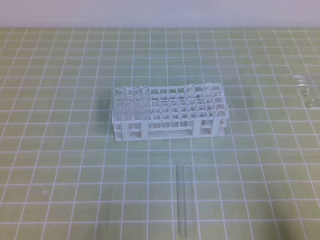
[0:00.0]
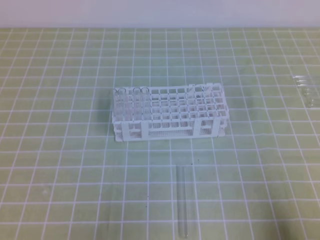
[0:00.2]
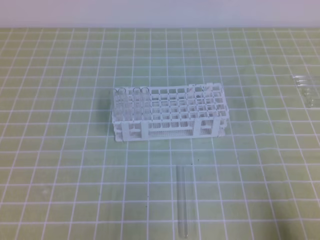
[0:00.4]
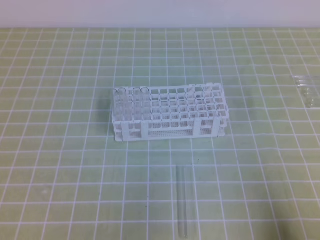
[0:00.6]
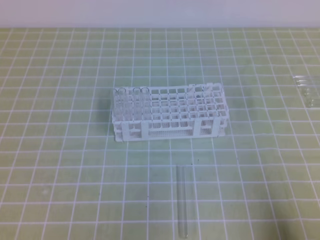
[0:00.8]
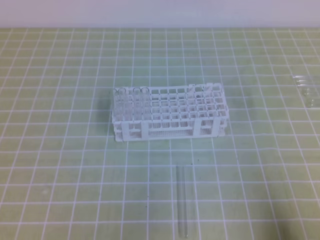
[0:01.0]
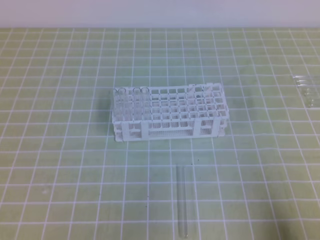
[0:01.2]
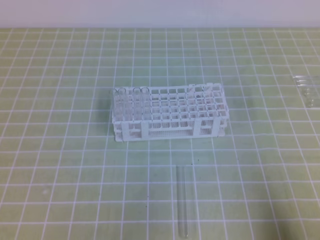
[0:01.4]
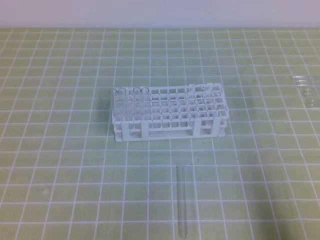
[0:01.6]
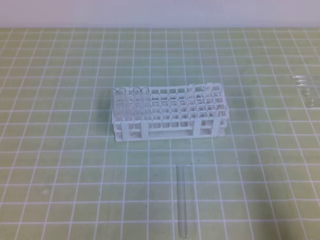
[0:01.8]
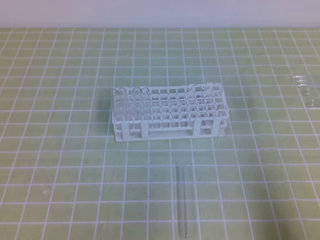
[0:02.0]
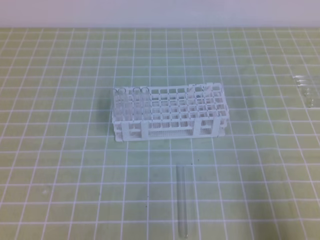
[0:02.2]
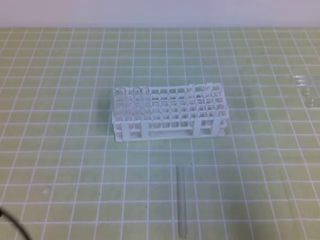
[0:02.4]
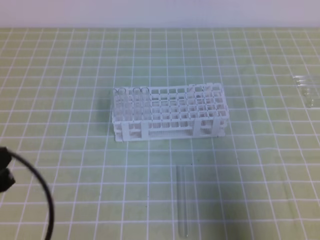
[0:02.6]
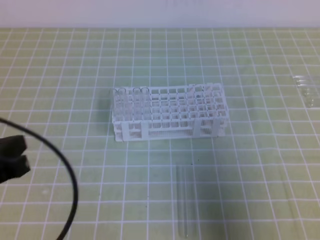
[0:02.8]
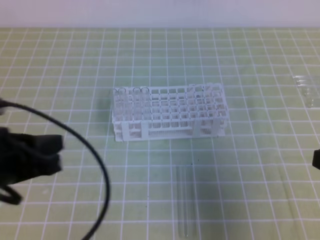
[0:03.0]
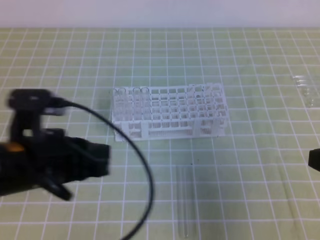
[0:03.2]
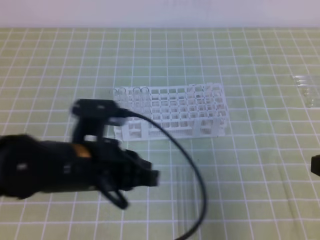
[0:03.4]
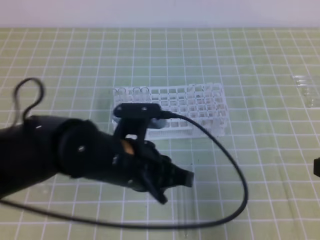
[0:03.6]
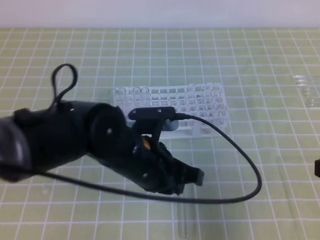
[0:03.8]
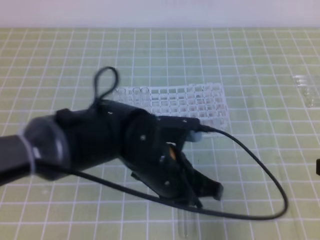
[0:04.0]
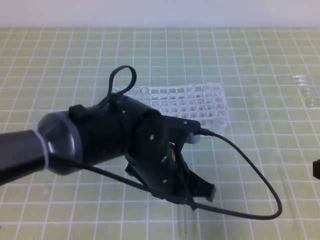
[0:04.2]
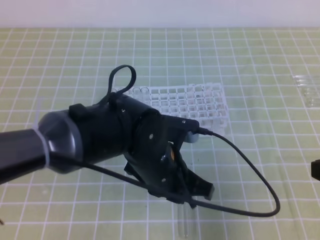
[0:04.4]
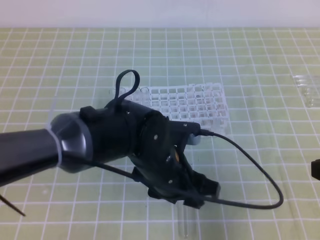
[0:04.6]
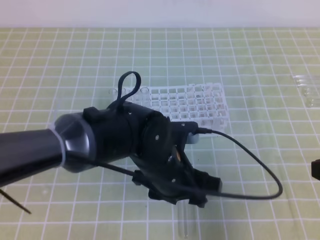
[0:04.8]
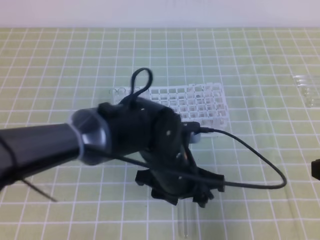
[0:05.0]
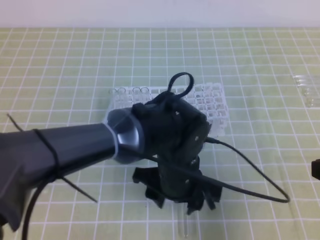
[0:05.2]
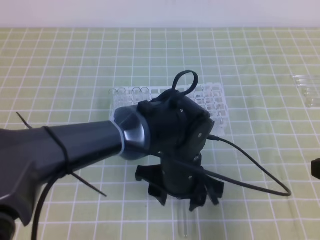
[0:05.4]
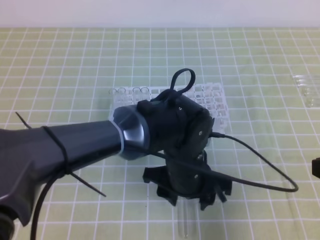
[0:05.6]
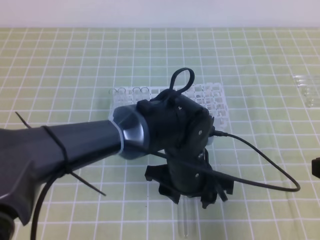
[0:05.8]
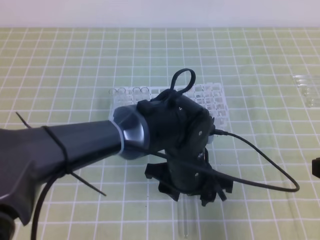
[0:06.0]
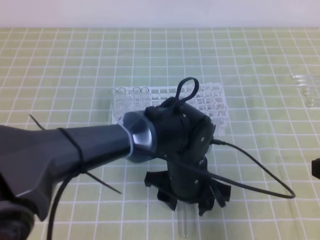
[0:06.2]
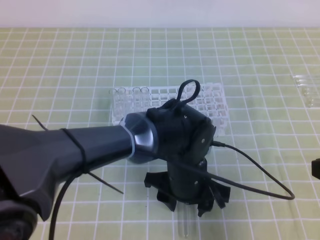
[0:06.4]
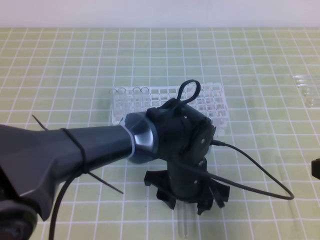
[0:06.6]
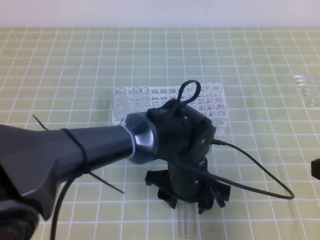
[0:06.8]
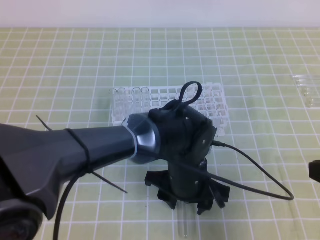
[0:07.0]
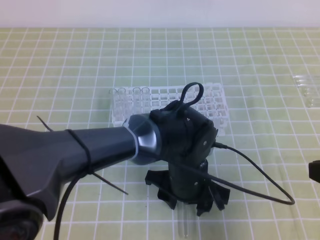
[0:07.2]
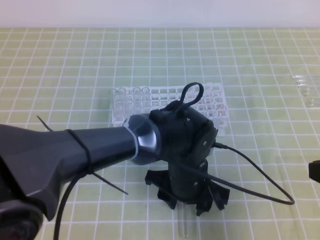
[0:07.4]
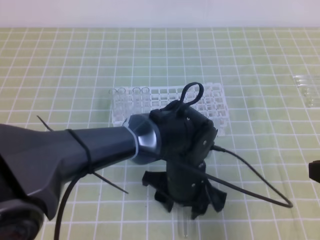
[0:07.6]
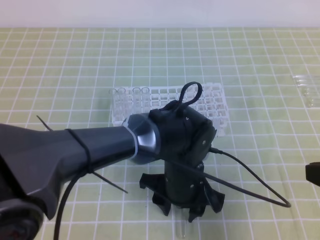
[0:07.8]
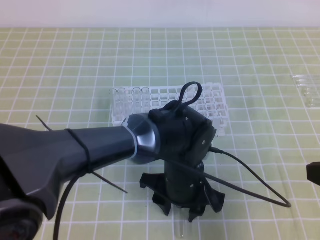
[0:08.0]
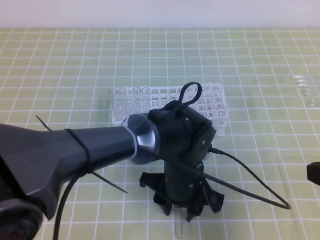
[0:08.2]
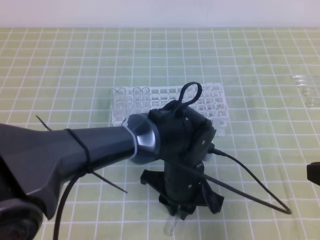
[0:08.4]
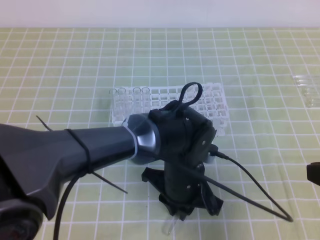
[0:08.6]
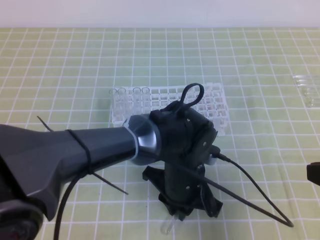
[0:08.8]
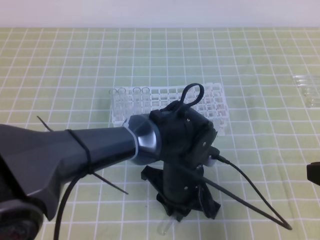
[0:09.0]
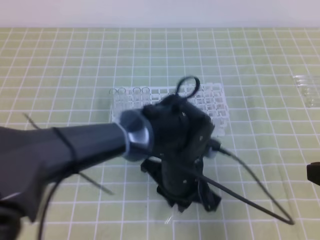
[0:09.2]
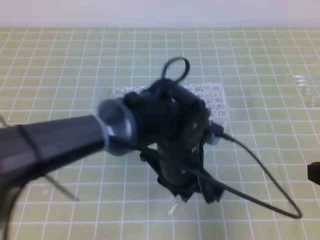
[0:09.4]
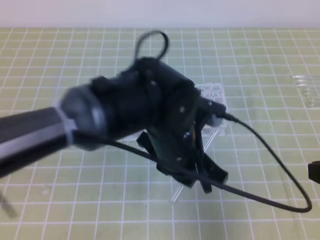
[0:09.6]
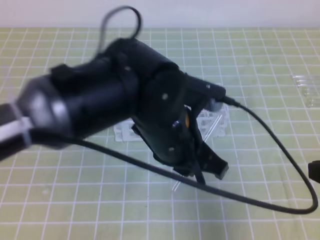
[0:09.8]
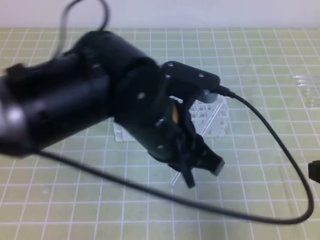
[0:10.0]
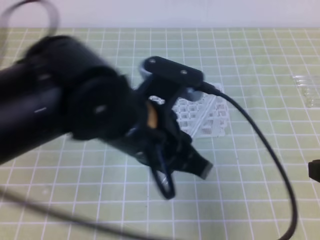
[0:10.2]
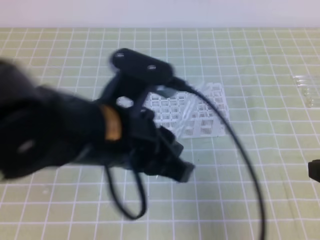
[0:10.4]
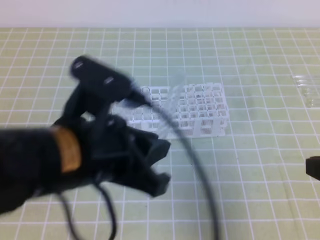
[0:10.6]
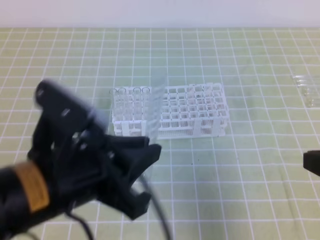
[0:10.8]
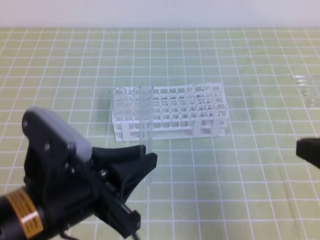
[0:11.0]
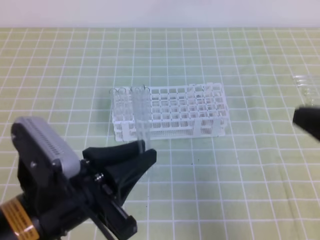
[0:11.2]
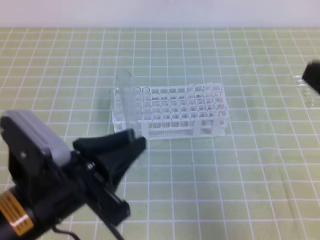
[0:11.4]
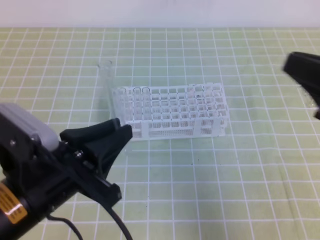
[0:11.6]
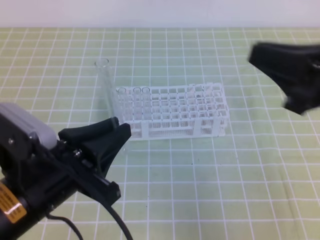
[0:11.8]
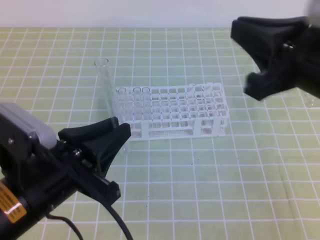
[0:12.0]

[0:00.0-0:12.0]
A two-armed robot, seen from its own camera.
0:01.6 to 0:03.0: The right gripper moves upward and forward, some 10 cm. The left gripper travels forward, upward and to the right by about 15 cm.
0:03.0 to 0:04.4: The left gripper travels to the right by some 20 cm.
0:04.4 to 0:06.0: The left gripper ends up about 5 cm from where it was, and opens up.
0:06.0 to 0:07.6: The grippers make only small movements.
0:07.6 to 0:09.0: The left gripper closes up.
0:09.0 to 0:10.4: The left gripper heads upward and to the left, covering roughly 20 cm.
0:10.4 to 0:12.0: The right gripper goes about 10 cm to the left, upward and forward, while the left gripper moves to the left and downward, roughly 10 cm.

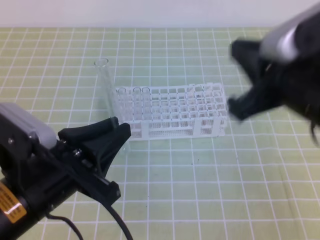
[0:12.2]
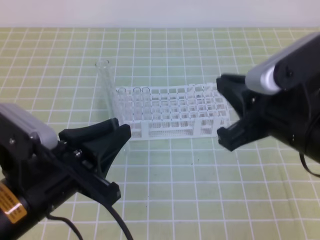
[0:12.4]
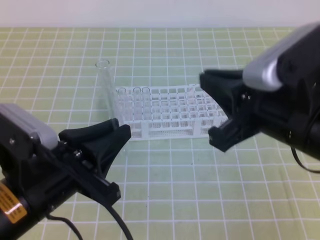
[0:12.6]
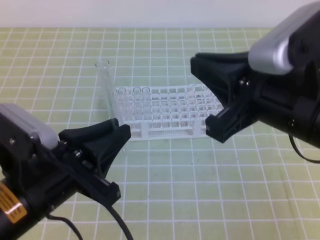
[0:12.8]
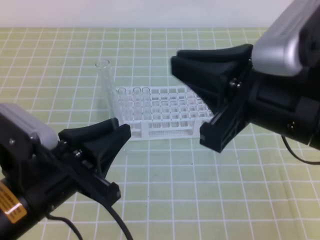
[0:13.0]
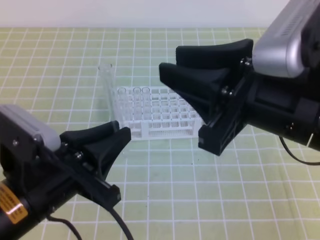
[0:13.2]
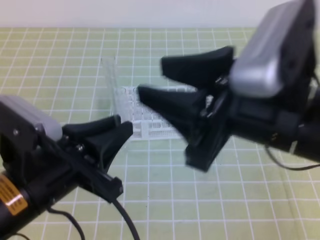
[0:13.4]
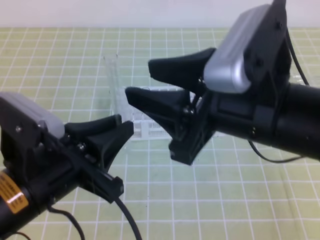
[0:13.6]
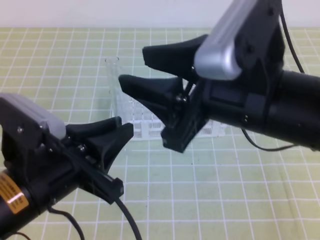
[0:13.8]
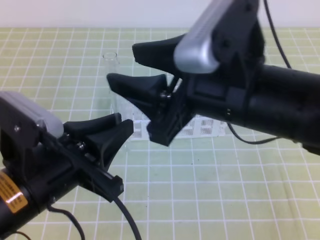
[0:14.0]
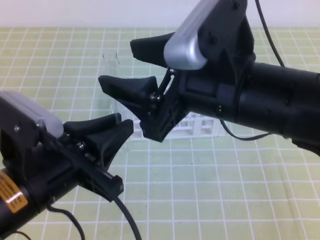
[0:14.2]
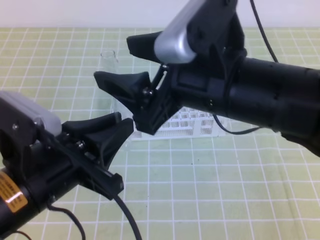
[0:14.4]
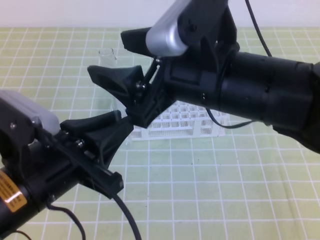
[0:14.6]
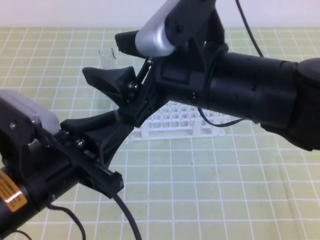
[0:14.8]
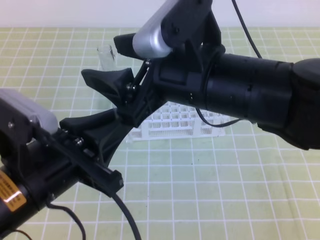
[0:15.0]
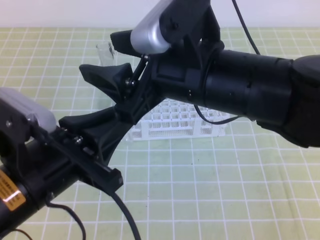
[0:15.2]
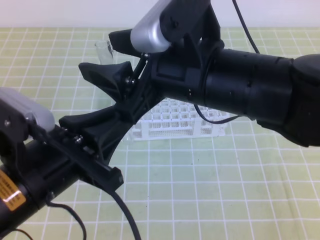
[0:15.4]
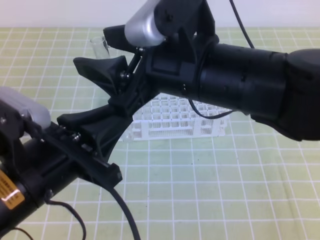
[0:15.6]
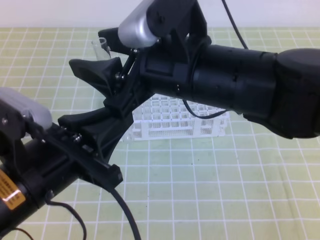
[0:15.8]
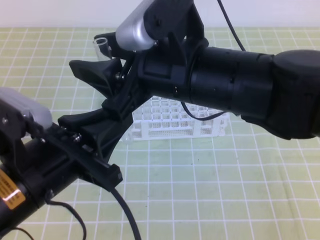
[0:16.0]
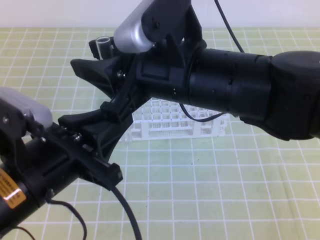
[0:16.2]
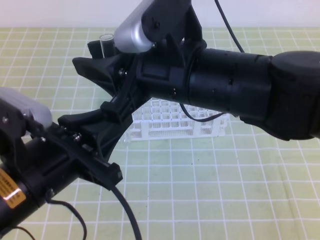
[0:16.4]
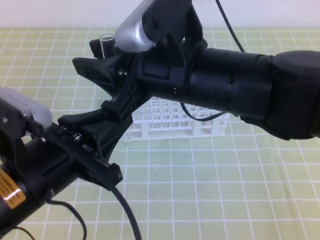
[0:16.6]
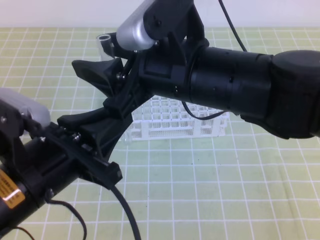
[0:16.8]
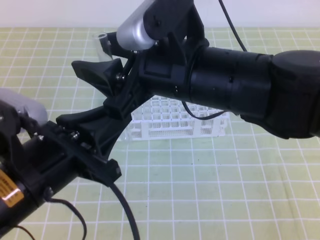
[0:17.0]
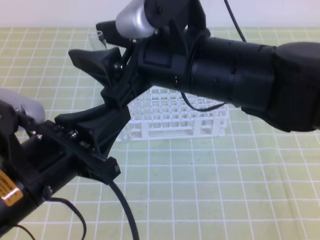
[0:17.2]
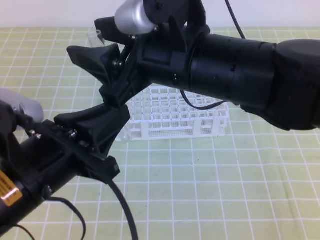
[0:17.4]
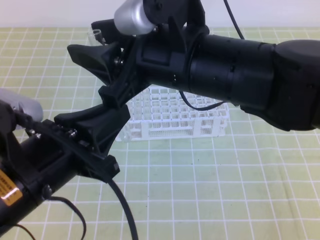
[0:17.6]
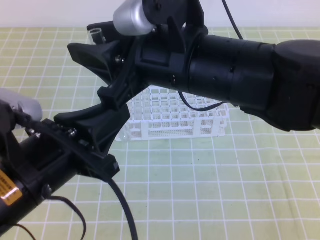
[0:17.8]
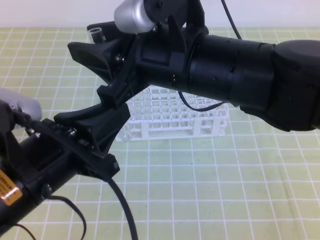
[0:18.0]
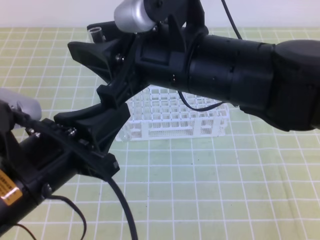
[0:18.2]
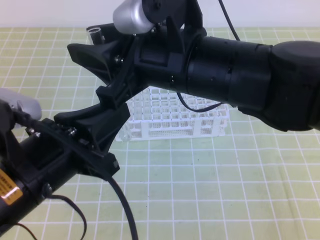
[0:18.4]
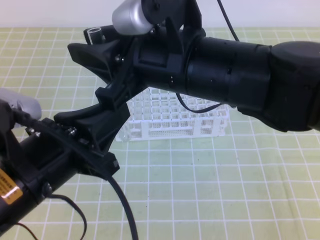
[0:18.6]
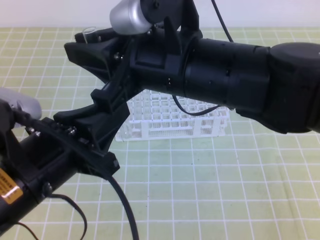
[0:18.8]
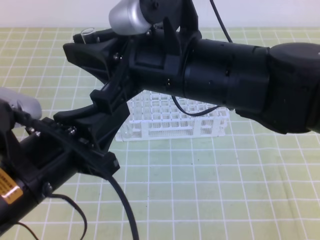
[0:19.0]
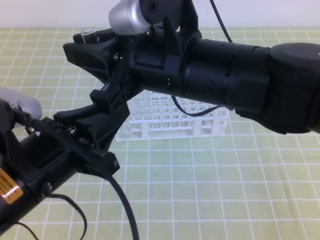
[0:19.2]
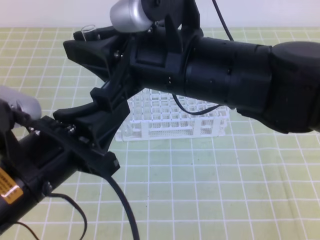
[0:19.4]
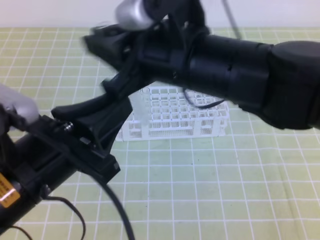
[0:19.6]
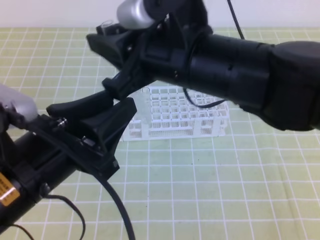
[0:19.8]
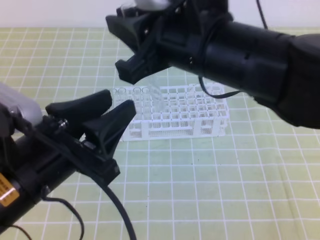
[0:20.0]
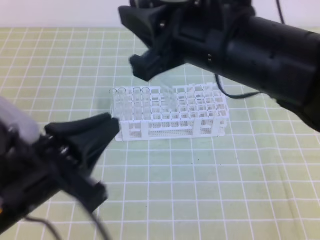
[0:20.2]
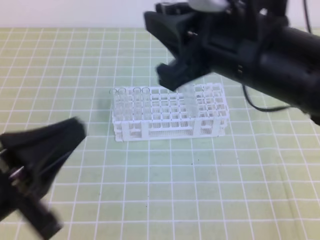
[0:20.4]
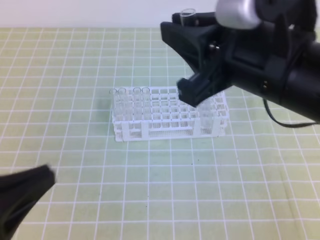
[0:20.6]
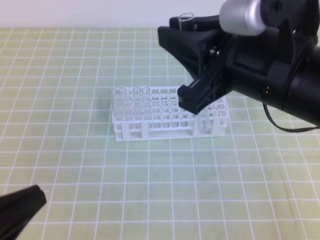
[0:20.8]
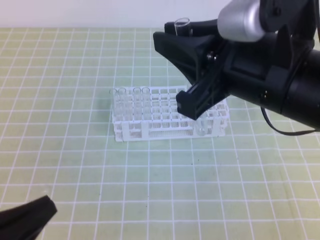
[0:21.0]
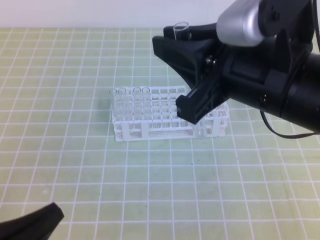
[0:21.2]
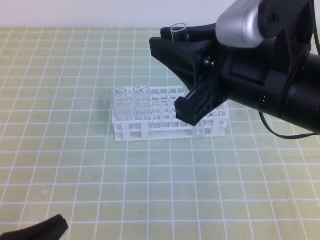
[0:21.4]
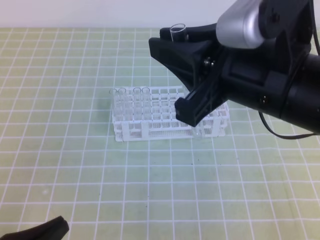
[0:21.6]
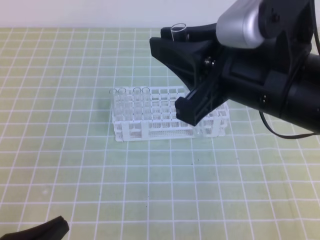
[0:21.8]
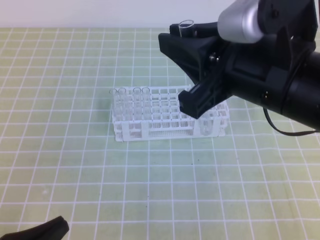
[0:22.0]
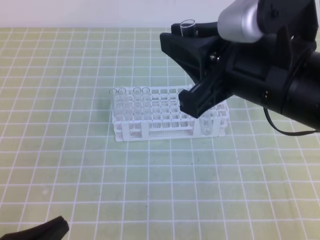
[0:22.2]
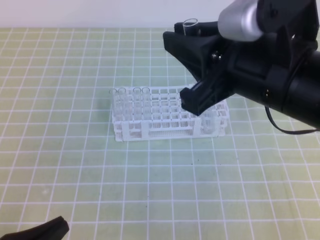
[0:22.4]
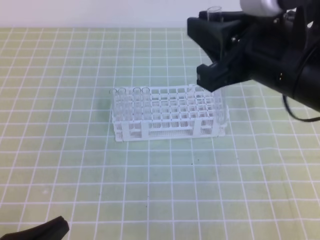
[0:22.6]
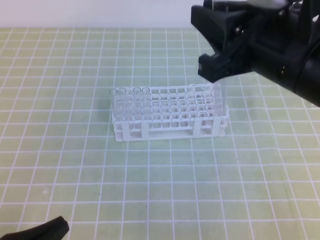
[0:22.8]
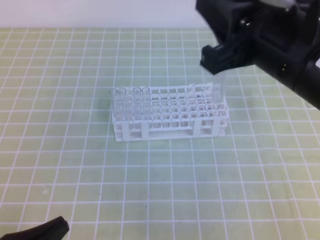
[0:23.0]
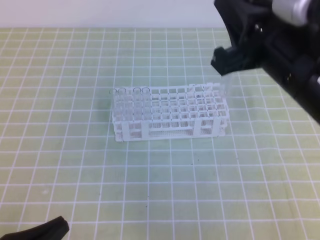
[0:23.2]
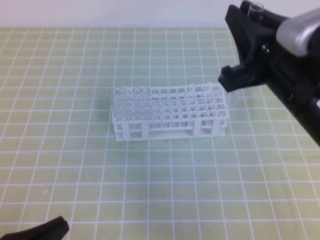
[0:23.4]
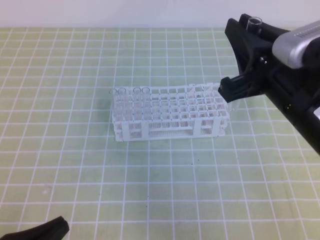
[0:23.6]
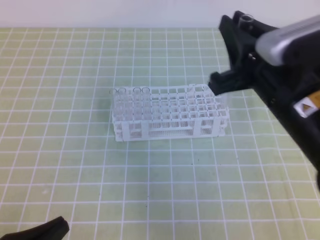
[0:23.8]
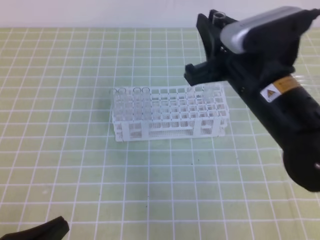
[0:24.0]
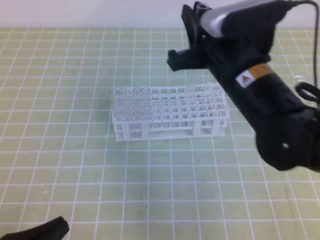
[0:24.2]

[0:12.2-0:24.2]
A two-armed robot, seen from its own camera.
0:12.2 to 0:13.8: The right gripper goes approximately 5 cm to the left, and opens its fingers.
0:13.8 to 0:15.2: The right gripper shifts by about 5 cm.
0:15.2 to 0:16.6: The right gripper closes up.
0:18.2 to 0:19.8: The right gripper closes up, while the left gripper opens up.
0:19.8 to 0:21.2: The left gripper shifts about 15 cm to the left, backward and downward, and closes; the right gripper shifts roughly 10 cm to the right and backward.
0:21.2 to 0:22.6: The grippers make only small movements.
0:22.6 to 0:24.2: The right gripper shifts roughly 10 cm forward and downward.
